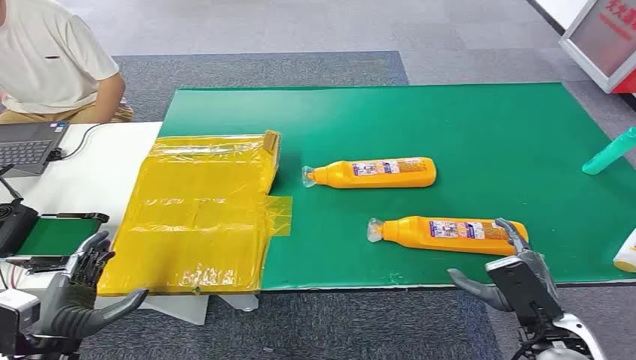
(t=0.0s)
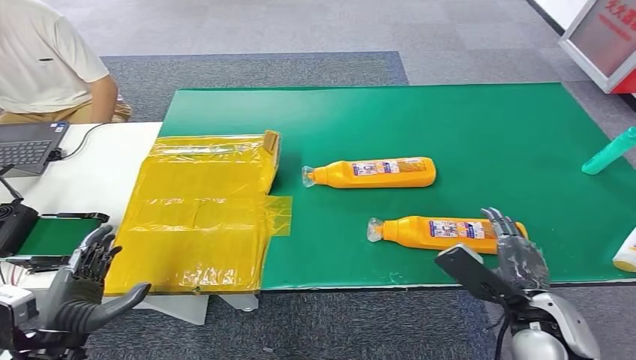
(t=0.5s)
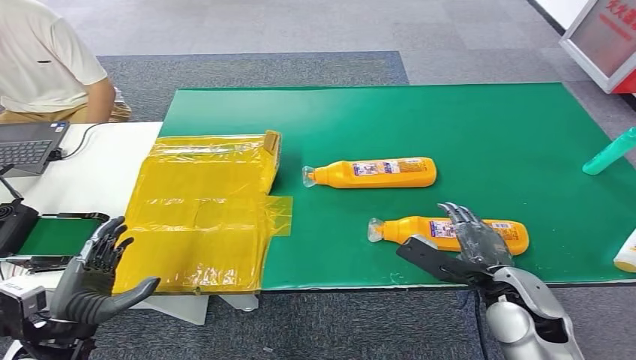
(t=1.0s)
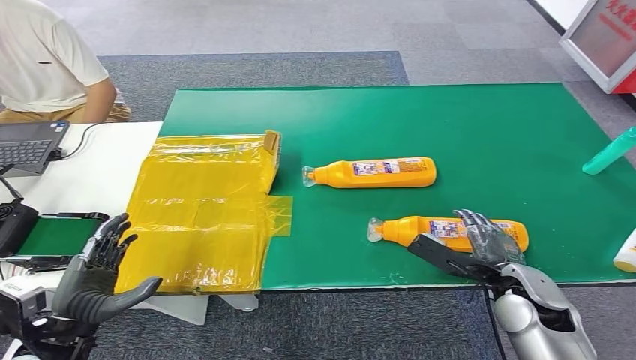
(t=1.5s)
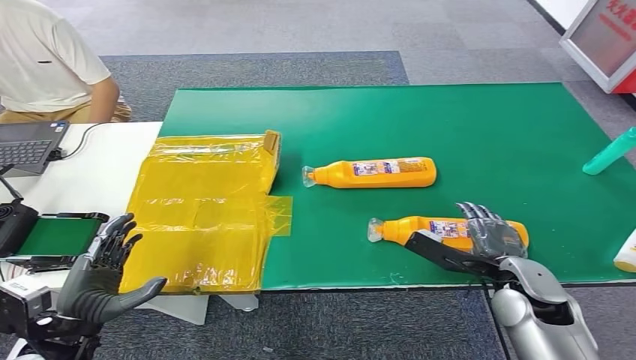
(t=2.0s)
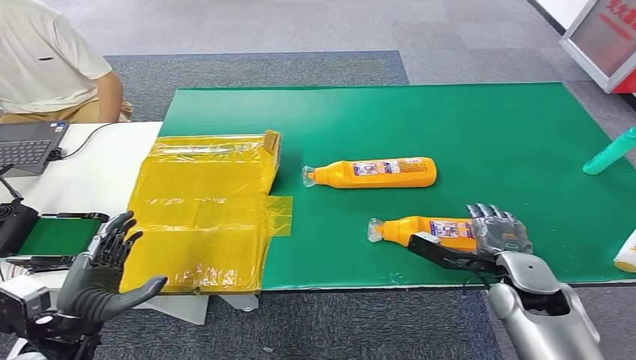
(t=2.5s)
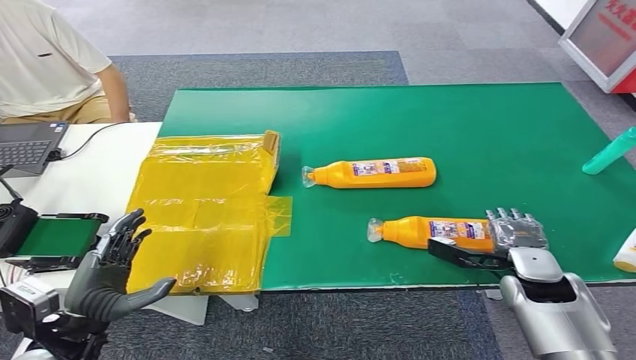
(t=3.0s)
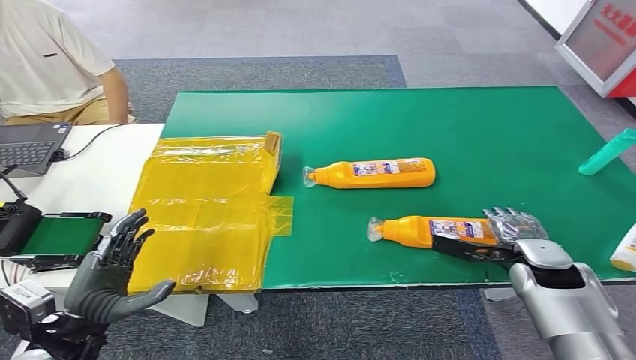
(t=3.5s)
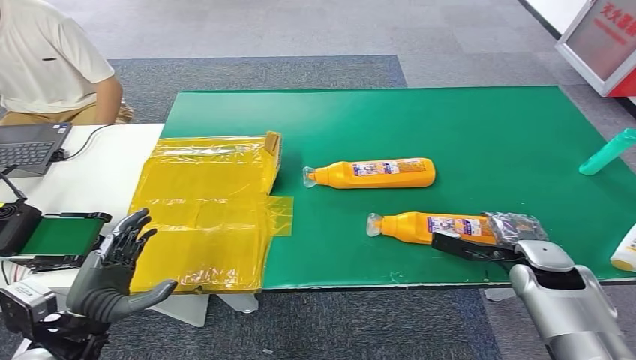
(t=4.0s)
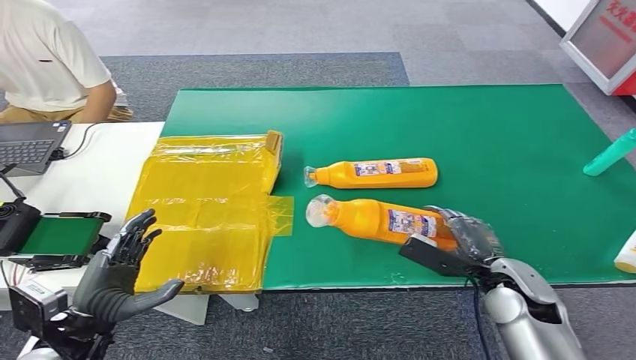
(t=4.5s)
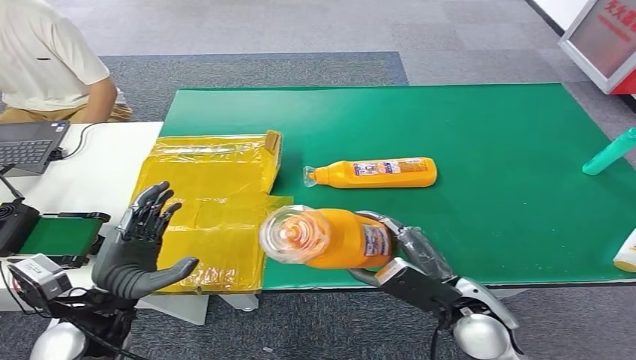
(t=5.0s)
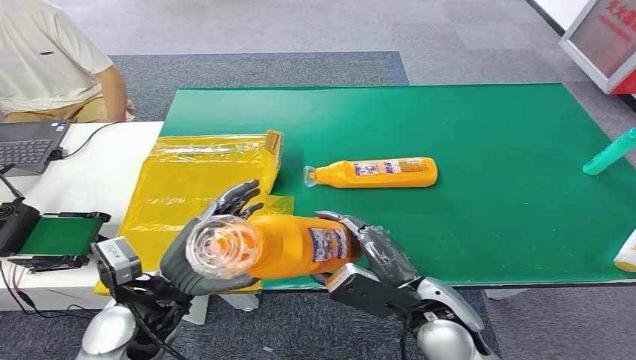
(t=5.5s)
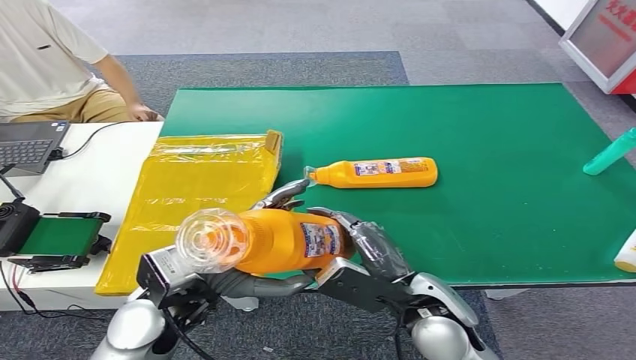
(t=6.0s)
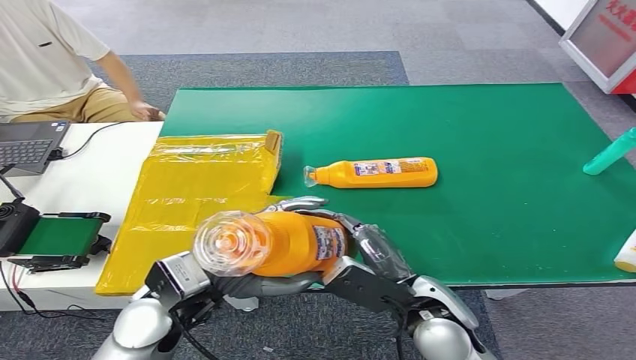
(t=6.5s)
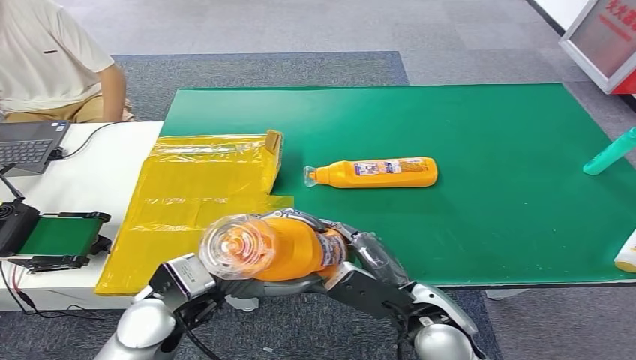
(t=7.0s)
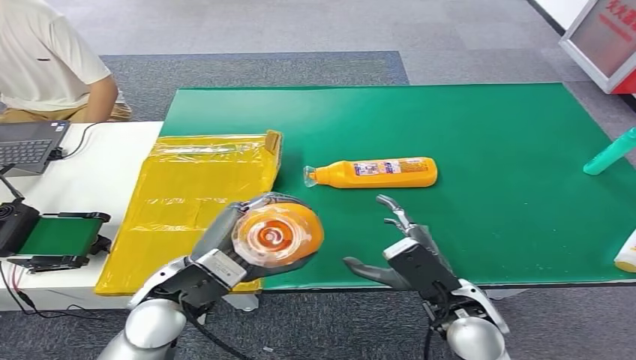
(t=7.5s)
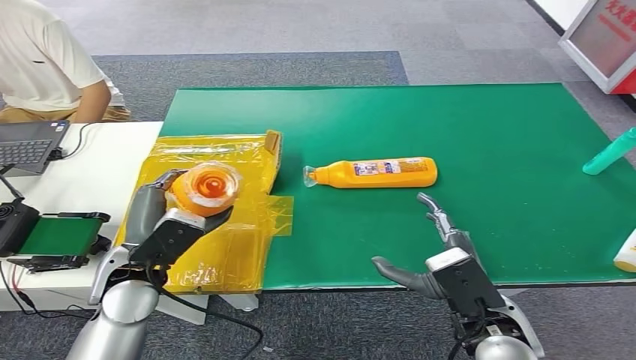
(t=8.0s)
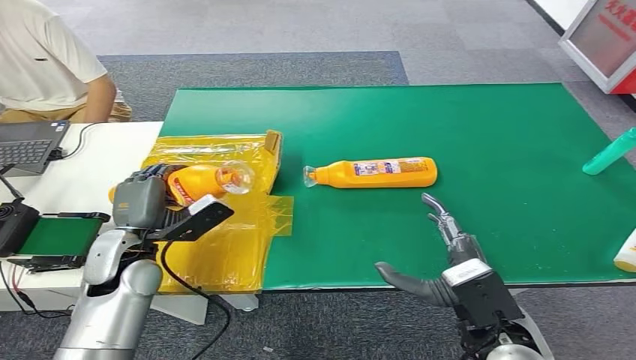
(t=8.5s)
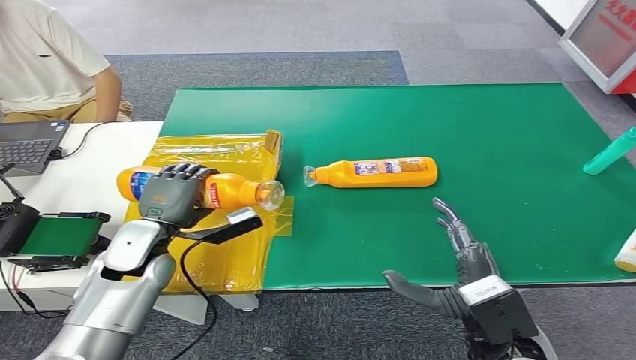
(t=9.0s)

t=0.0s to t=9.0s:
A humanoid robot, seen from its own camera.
Step, t=0.0s to t=4.5s: Pick up the bottle from the table.
Step, t=5.0s to t=9.0s: Turn the bottle to the front side.
t=7.0s to t=9.0s: The right hand is displaced to the right by some 5 cm, while the left hand travels forward, to the left and downward by about 15 cm.

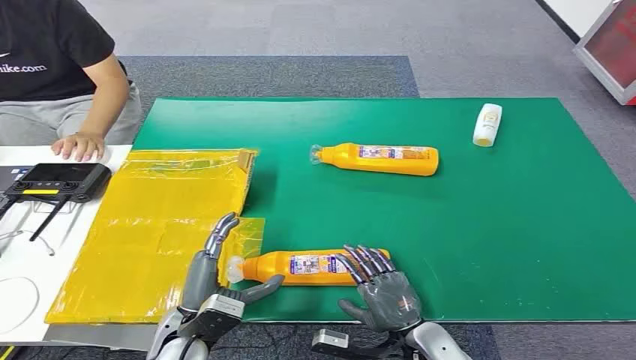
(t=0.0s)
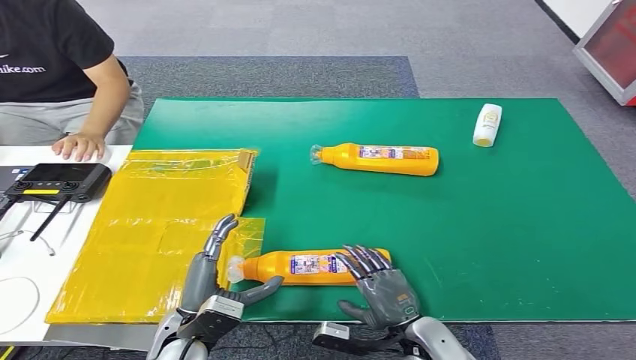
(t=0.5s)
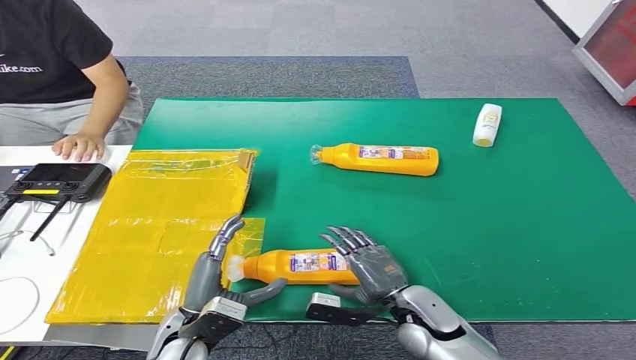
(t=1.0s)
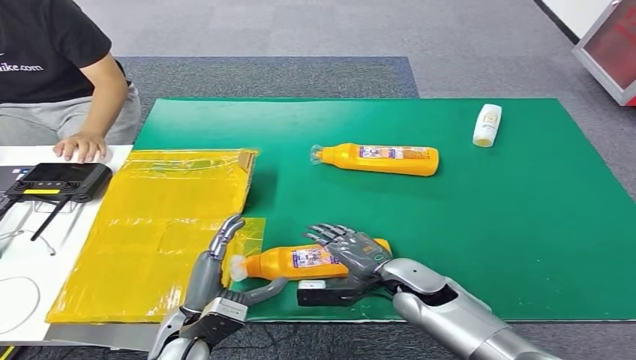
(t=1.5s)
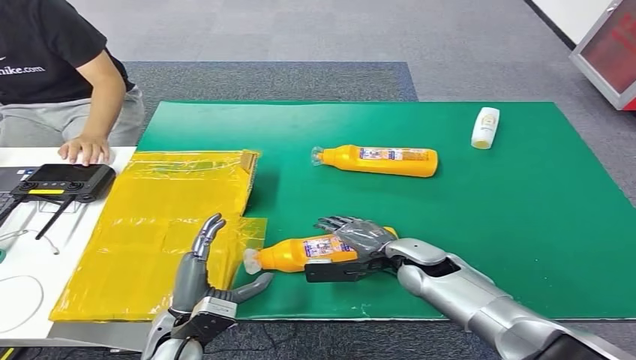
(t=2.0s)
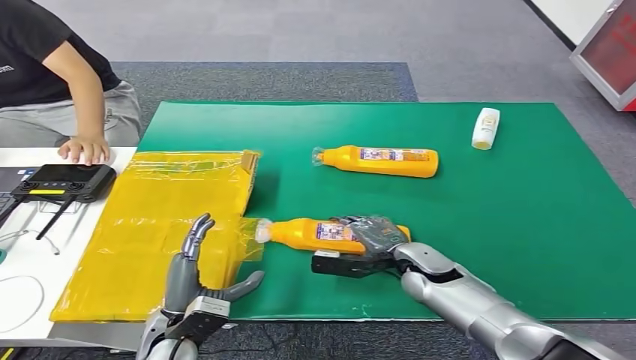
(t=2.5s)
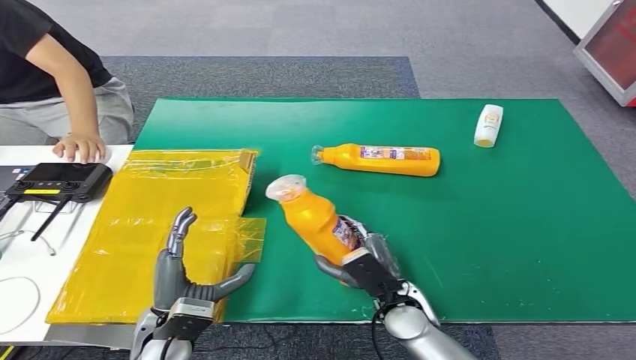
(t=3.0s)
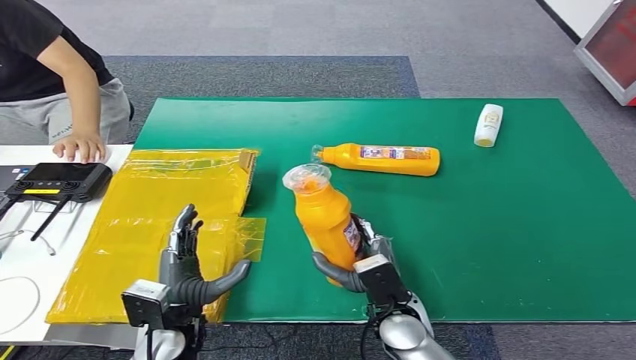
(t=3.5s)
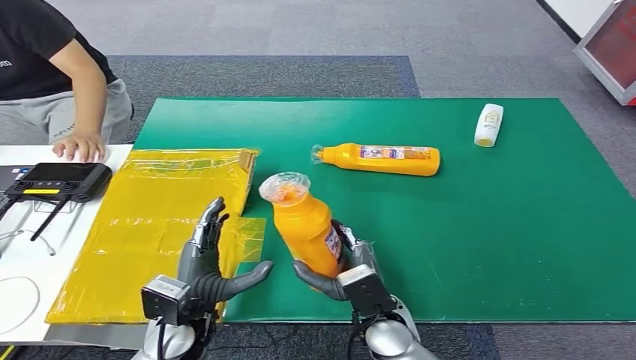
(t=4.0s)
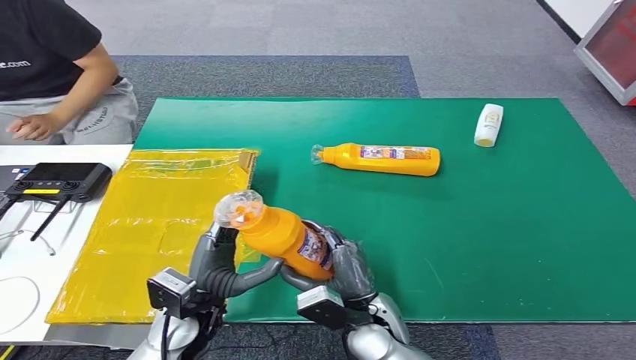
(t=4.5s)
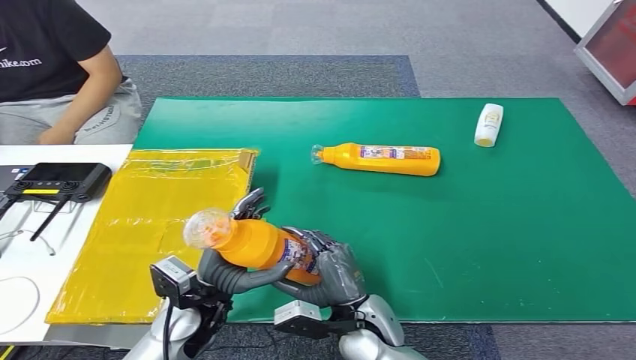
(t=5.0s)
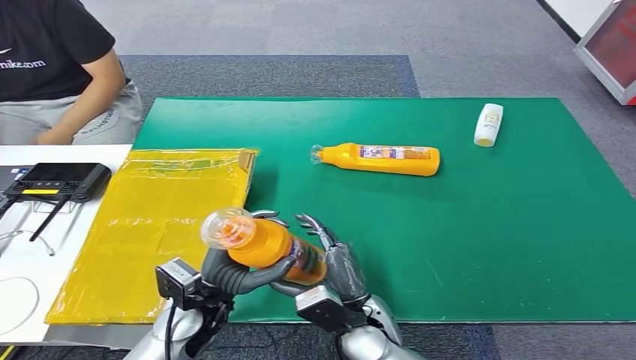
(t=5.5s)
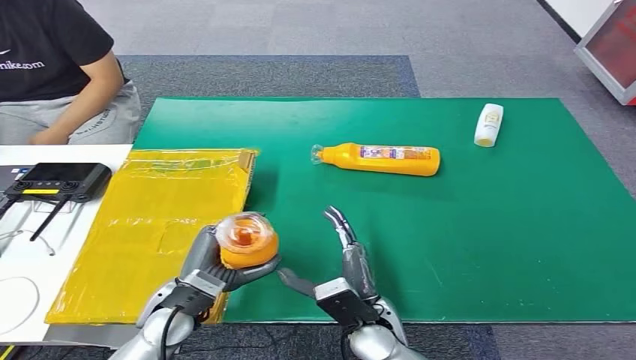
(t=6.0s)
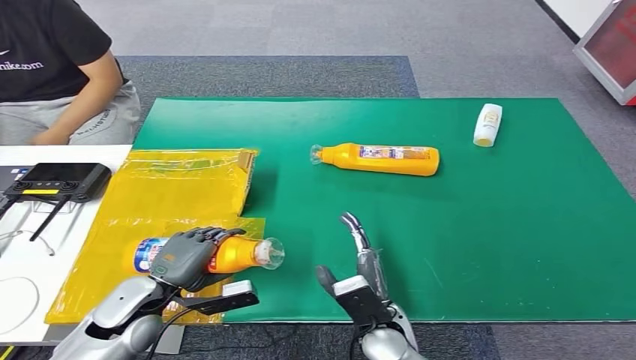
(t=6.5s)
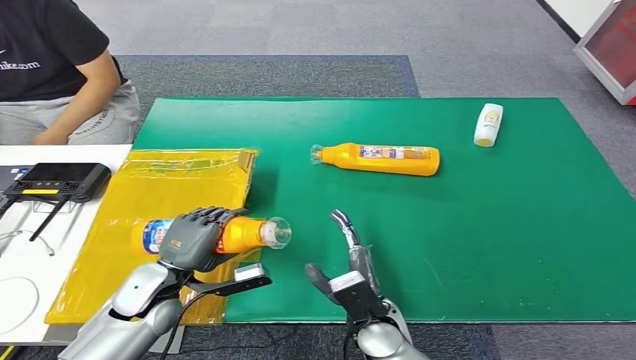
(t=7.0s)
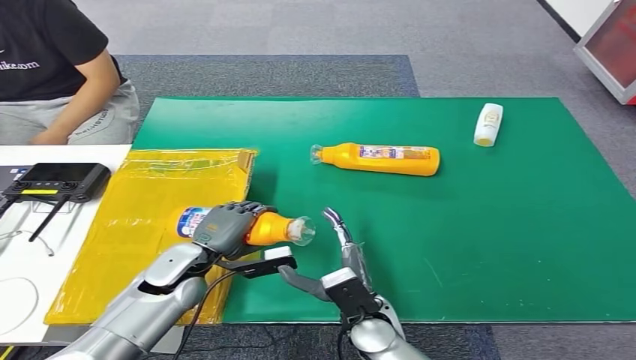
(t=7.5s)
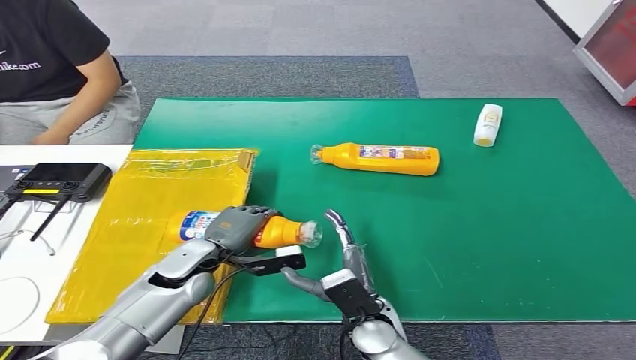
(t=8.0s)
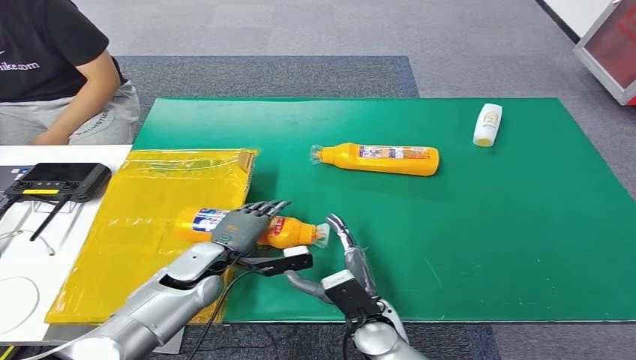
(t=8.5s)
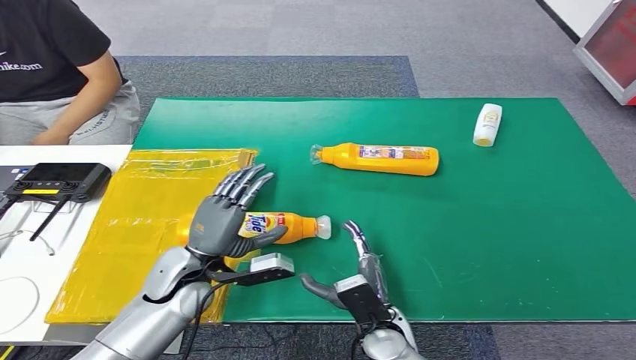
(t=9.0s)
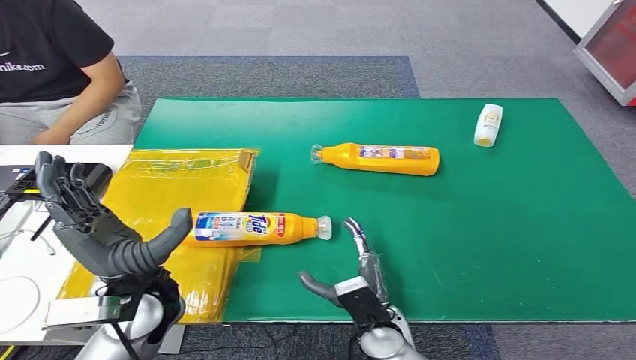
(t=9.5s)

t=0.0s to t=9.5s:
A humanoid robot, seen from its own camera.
Step, t=0.0s to t=3.0s: Pick up the bottle from the table.
Step, t=3.5s to t=9.5s: Turn the bottle to the front side.
t=5.5s to t=7.5s: The left hand goes about 10 cm forward and to the left.
t=7.5s to t=9.5s: The left hand moves upward and backward, approximately 15 cm.

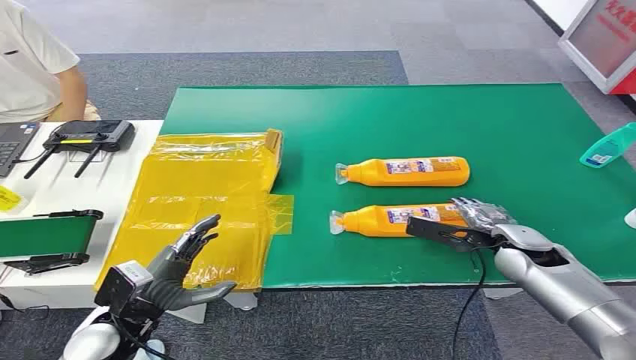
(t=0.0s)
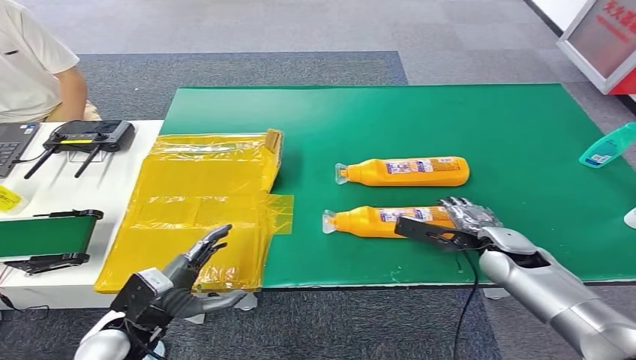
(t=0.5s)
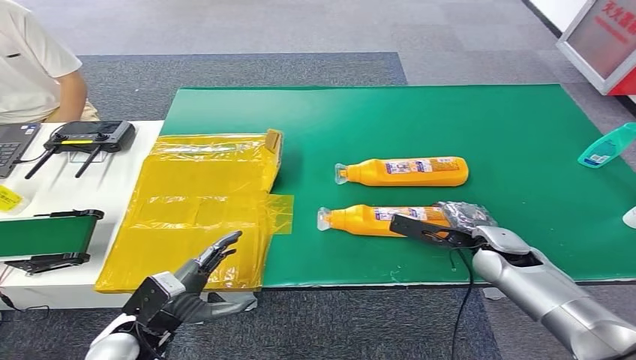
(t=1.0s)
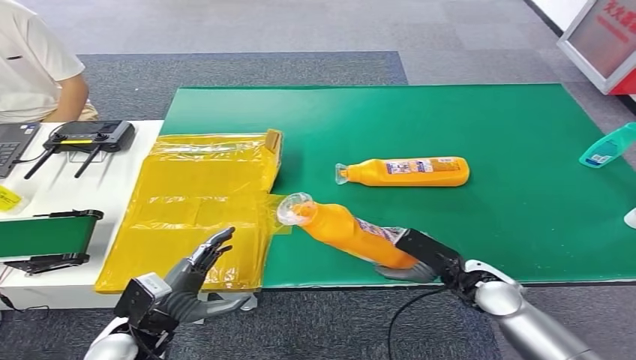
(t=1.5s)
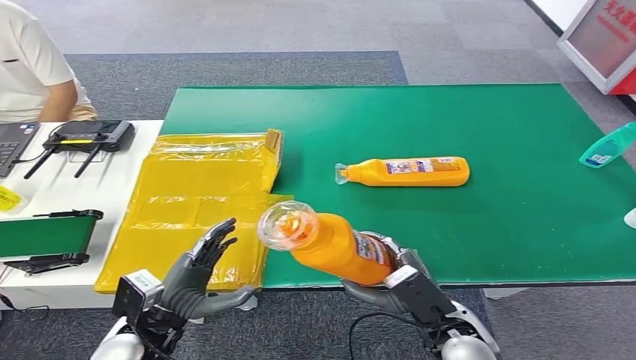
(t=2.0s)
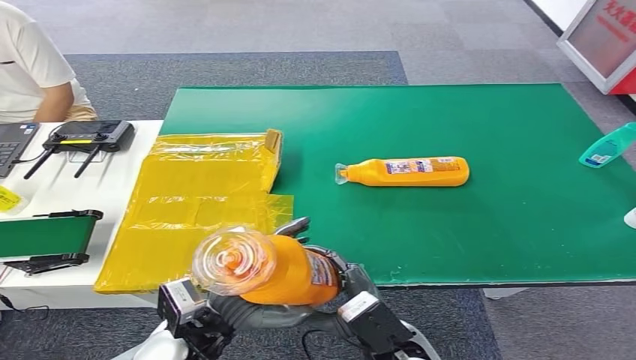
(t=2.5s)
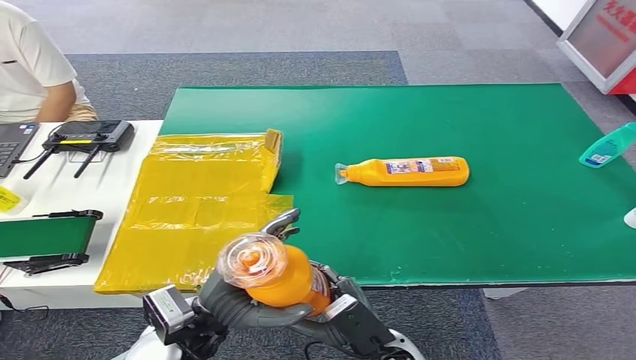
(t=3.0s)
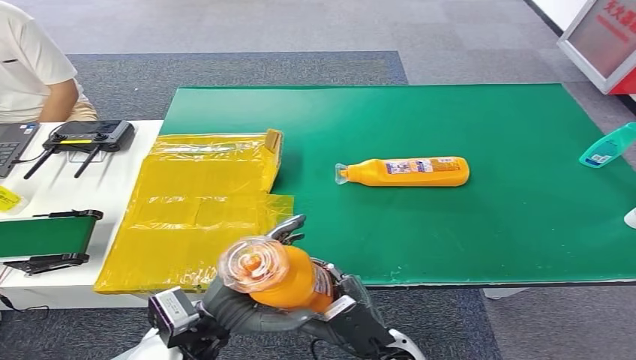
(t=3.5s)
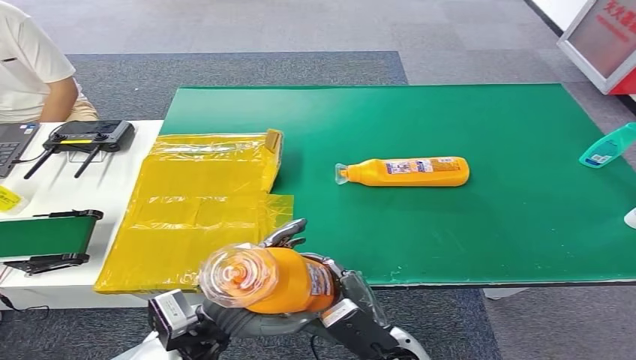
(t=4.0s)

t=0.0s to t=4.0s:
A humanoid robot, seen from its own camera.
Step, t=0.0s to t=2.0s: Pick up the bottle from the table.
t=2.0s to t=4.0s: The right hand heads to the left, covering approximately 10 cm. The left hand travels to the right by about 5 cm.
